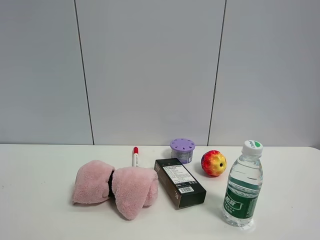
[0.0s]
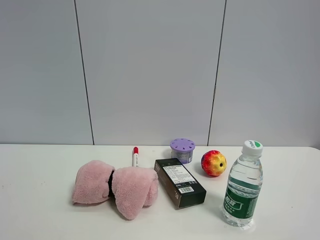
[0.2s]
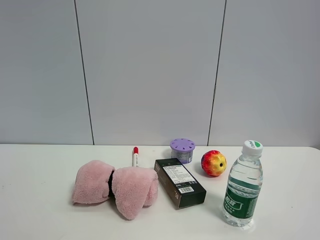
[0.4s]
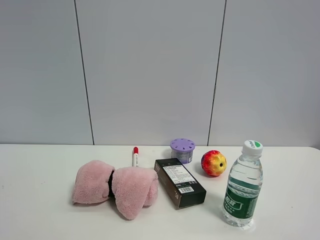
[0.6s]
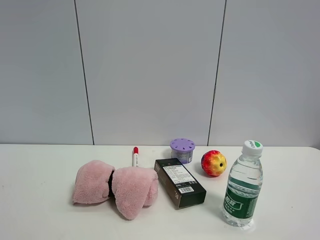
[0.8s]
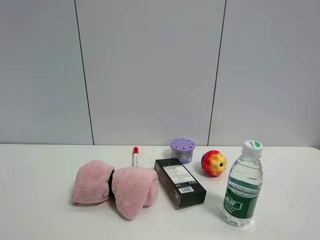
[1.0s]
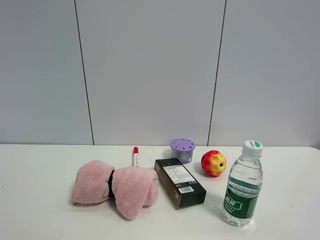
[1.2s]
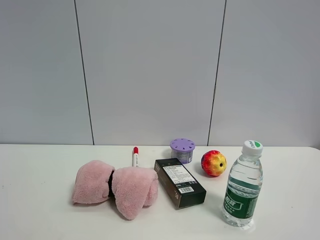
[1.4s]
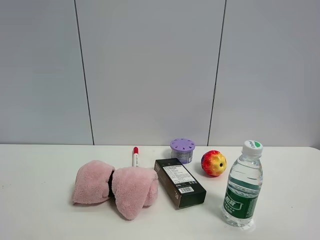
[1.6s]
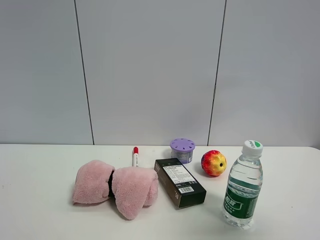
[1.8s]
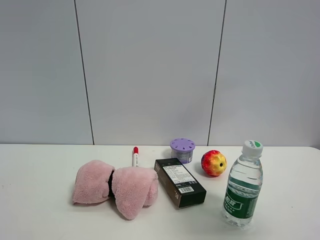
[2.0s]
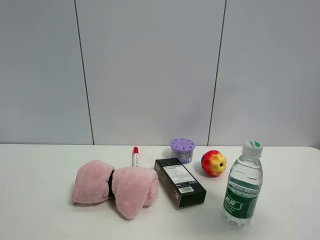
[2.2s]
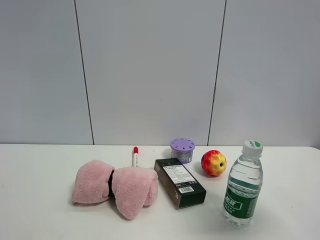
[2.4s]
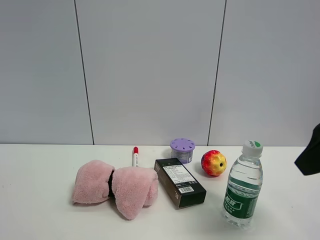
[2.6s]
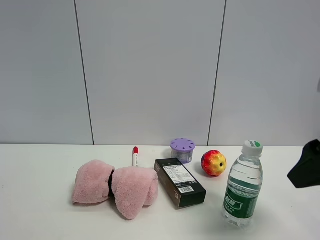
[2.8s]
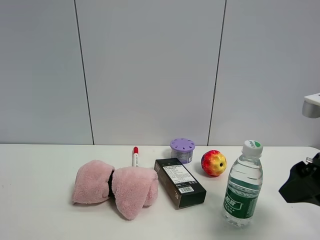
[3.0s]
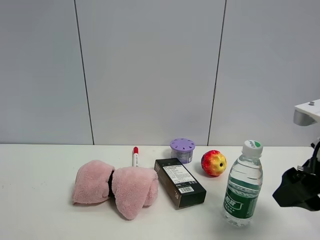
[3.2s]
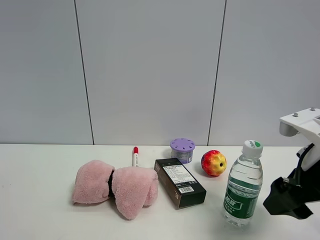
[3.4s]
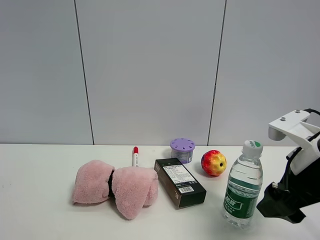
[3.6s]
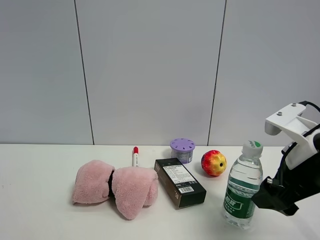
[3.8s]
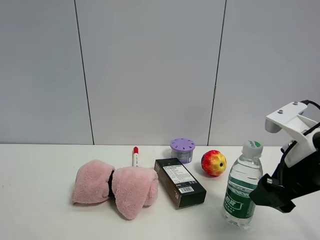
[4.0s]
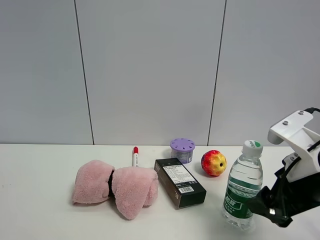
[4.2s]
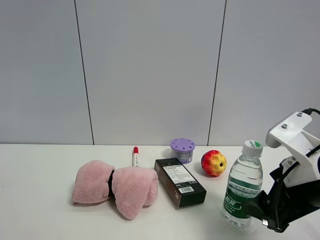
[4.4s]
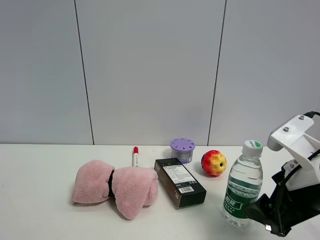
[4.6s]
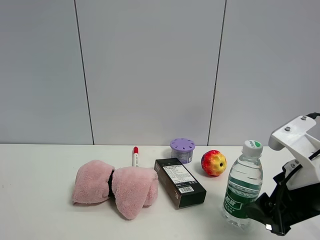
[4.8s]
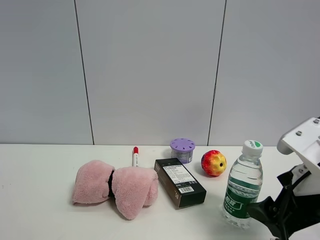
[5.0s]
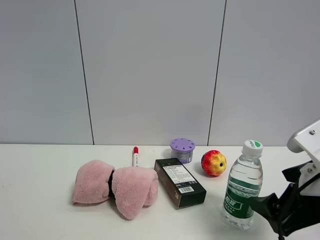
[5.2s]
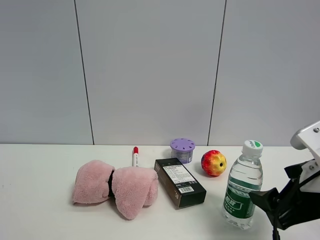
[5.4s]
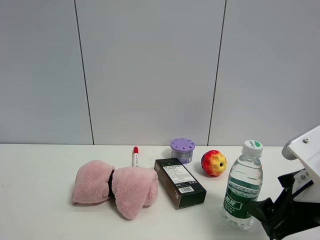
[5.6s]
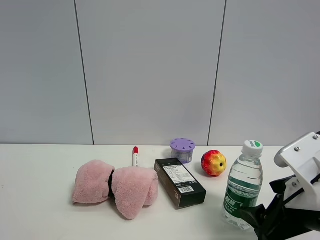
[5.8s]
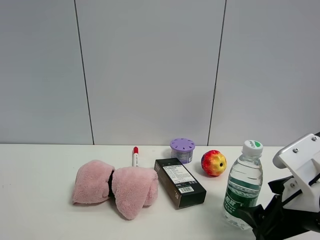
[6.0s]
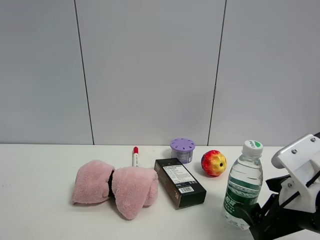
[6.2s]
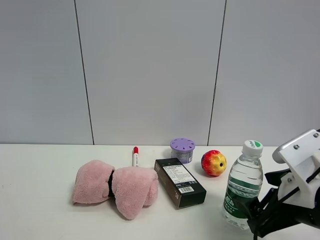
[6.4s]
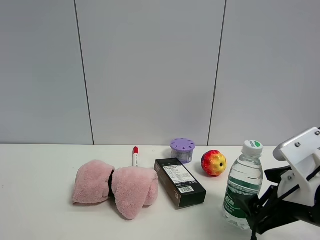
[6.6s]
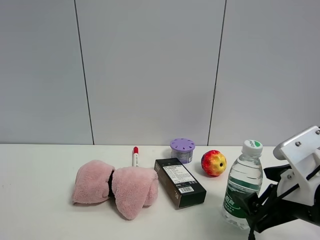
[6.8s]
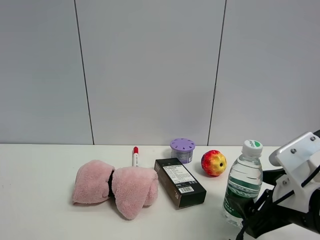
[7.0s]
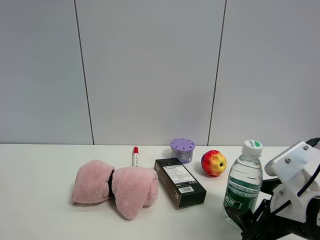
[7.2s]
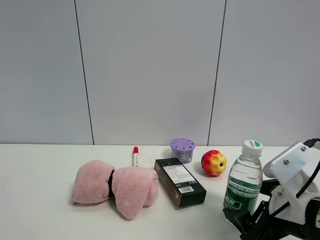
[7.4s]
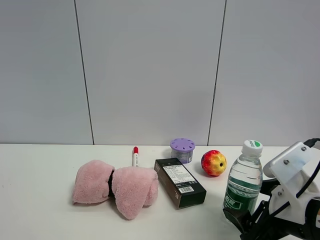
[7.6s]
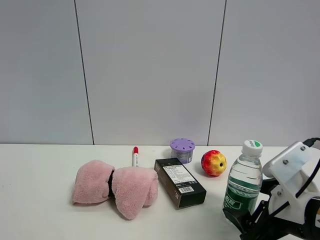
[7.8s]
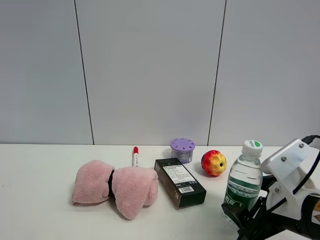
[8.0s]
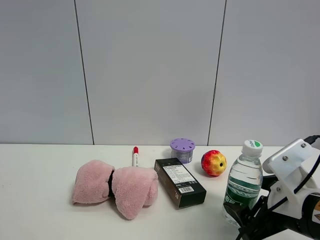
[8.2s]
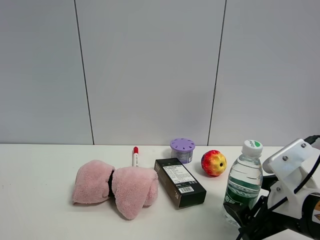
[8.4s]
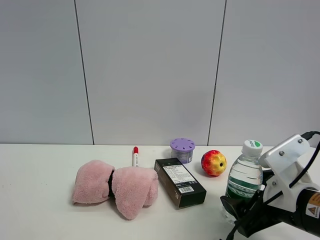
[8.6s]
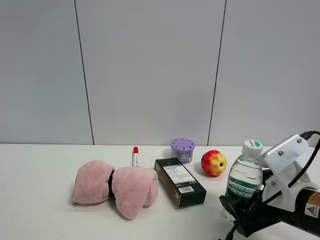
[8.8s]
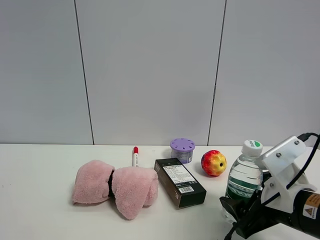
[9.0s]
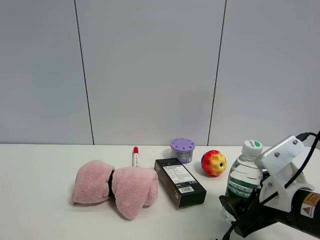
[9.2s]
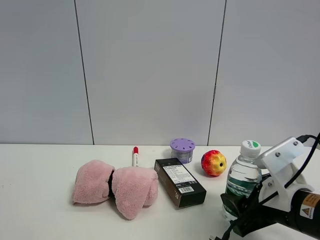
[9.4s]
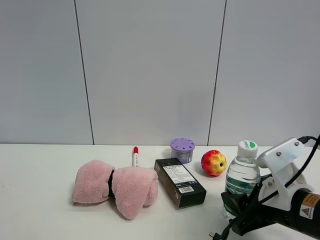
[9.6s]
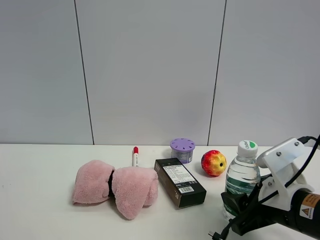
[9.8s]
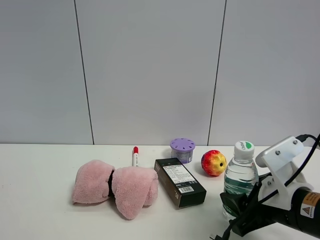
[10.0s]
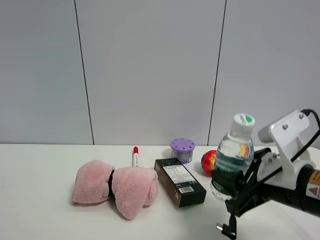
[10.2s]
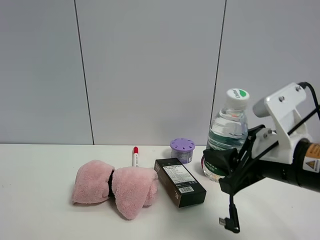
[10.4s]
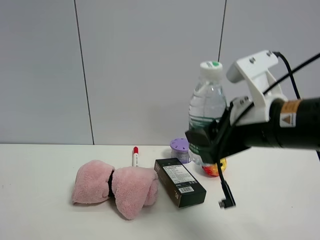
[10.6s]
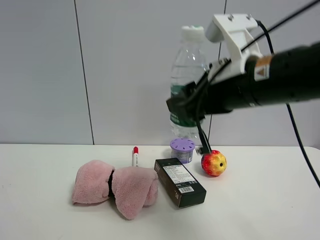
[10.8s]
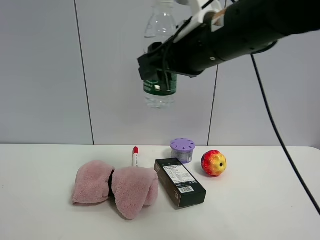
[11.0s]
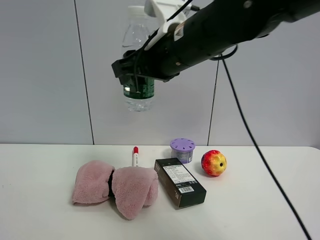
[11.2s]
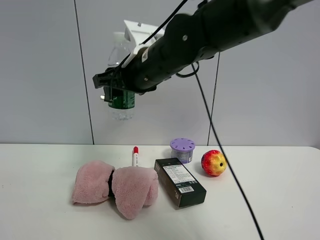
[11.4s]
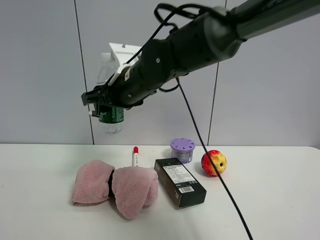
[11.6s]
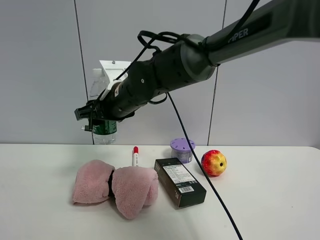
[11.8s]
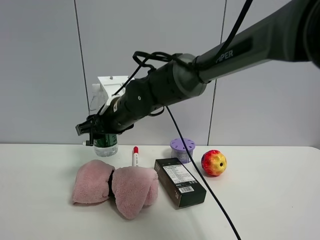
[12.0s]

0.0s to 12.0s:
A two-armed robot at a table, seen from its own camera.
Task of the whole recording: the gripper move the object.
Step, 0.0s to 9.6s: Grasp the YiBao mineral water with the right gripper.
1.6s to 3.0s: The right gripper shifts approximately 25 cm forward and downward.
3.0s to 4.4s: The right gripper moves downward, approximately 5 cm.
4.4s to 6.0s: There are only small adjustments of the grippers.
6.0s to 9.0s: The grippers stay close to where they were, moving slightly.
9.0s to 10.4s: The right gripper goes roughly 10 cm upward, and closes.
10.4s to 12.0s: The right gripper goes about 30 cm to the left and forward.

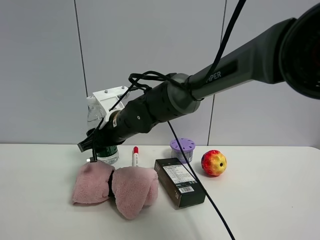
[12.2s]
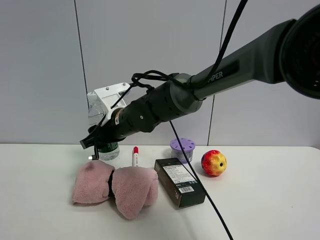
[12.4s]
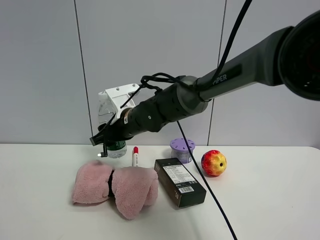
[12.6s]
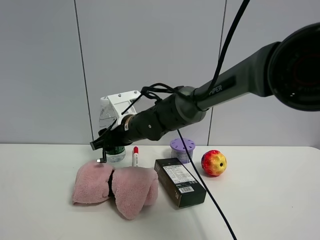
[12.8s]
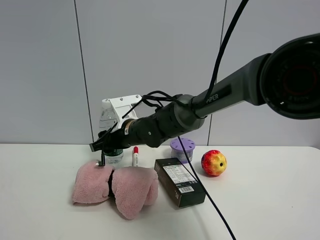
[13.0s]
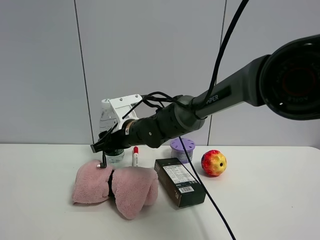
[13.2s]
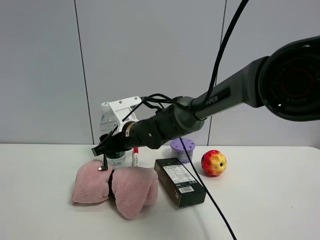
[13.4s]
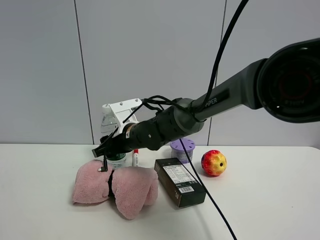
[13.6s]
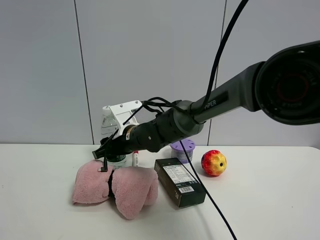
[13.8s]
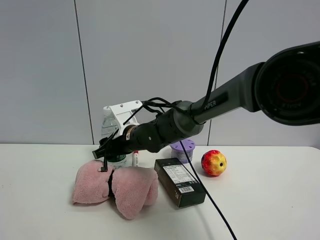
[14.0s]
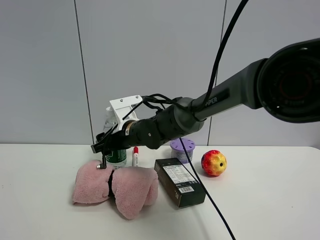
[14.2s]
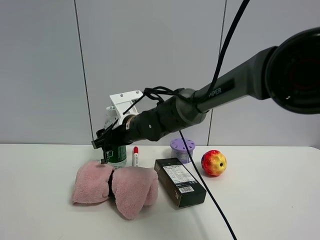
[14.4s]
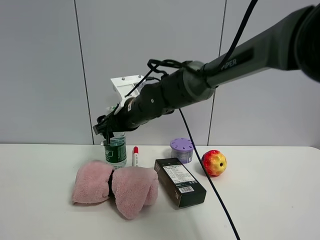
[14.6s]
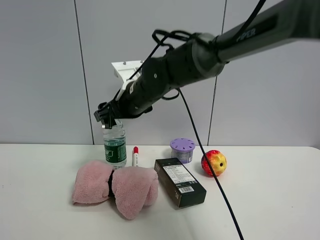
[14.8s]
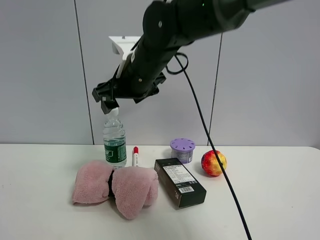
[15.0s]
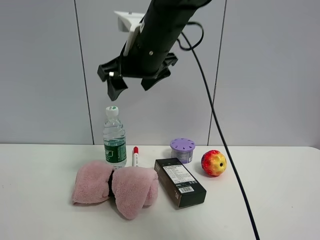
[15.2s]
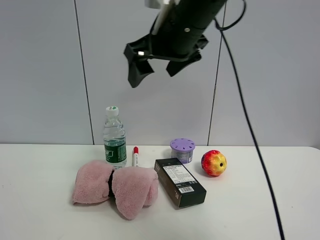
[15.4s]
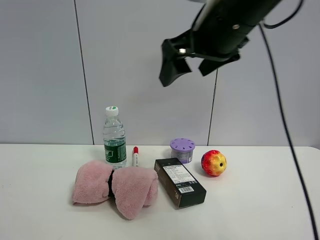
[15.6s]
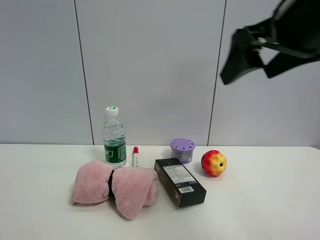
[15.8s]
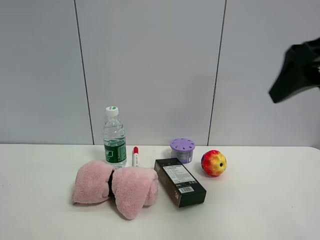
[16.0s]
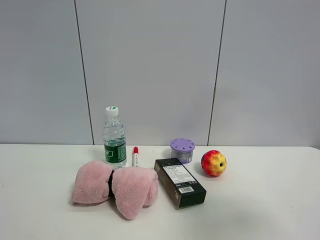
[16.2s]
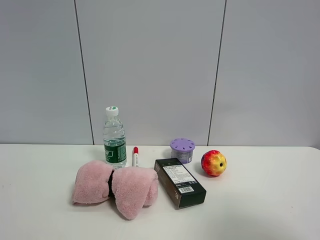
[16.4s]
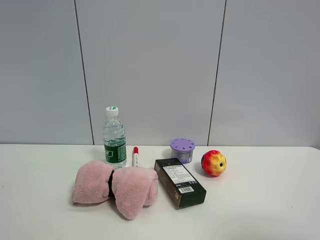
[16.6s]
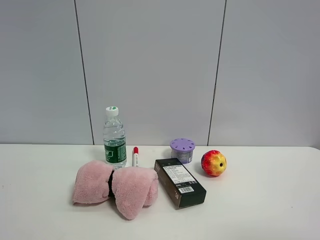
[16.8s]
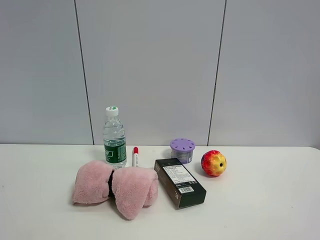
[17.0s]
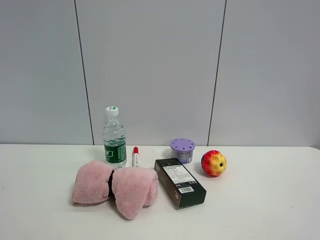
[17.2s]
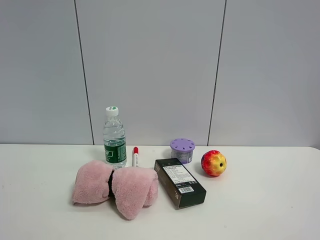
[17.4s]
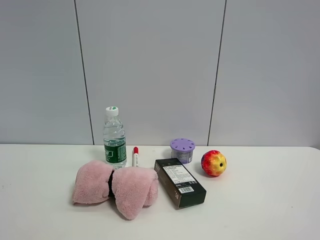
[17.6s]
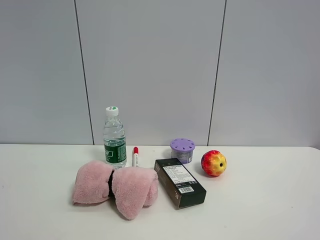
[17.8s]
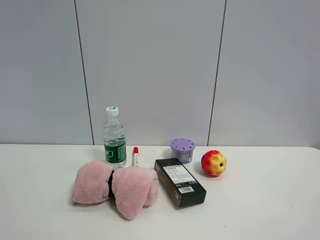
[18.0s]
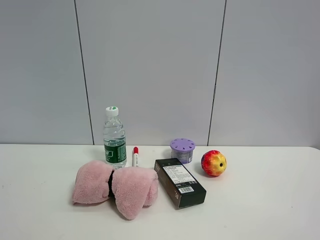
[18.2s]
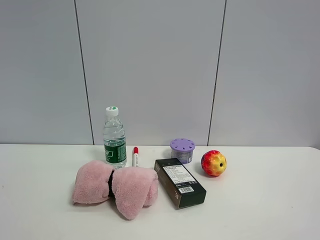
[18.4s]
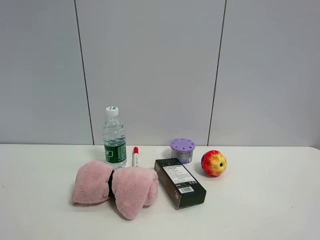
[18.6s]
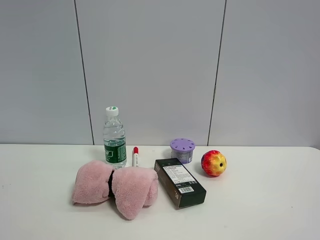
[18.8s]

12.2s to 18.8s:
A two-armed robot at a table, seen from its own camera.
Task of the whole recording: the gripper move the object.
Step, 12.2s to 15.2s: Place the YiBao mineral water on the table with the right gripper.
12.2s to 13.8s: The right gripper changes place by some 5 cm.
13.8s to 15.4s: The right gripper is displaced upward, backward and to the right by roughly 30 cm, and opens its fingers.
15.4s to 17.2s: The right gripper goes roughly 40 cm backward and to the right.
17.2s to 18.8s: Neither gripper changes place.

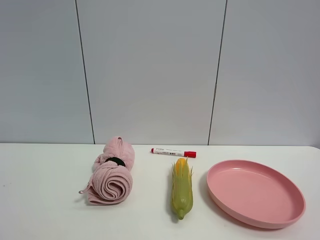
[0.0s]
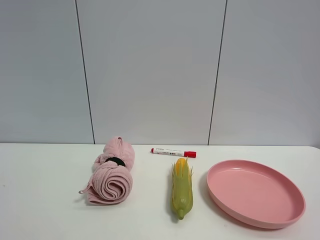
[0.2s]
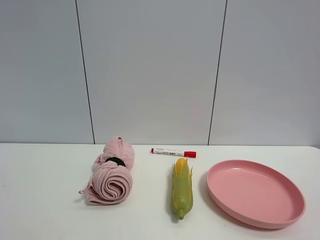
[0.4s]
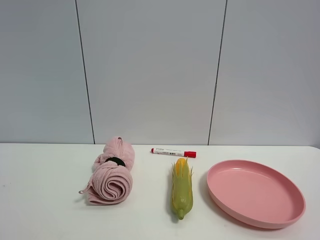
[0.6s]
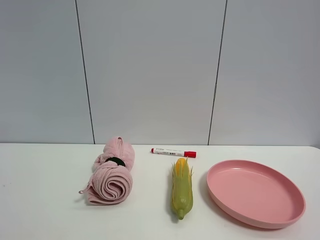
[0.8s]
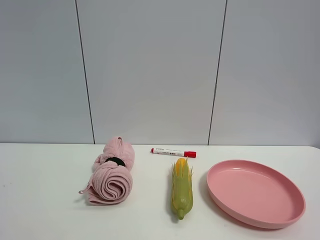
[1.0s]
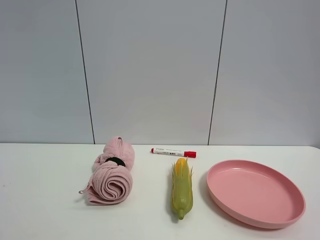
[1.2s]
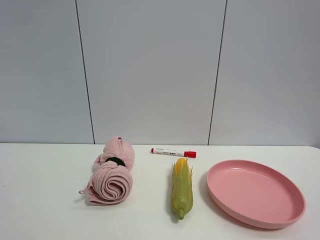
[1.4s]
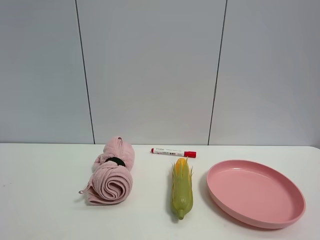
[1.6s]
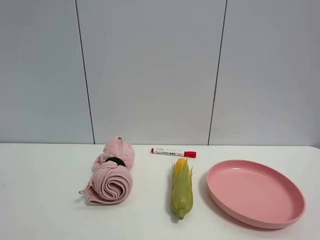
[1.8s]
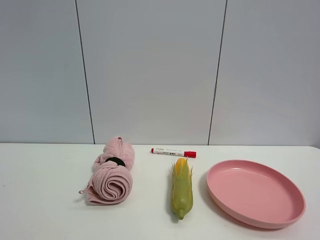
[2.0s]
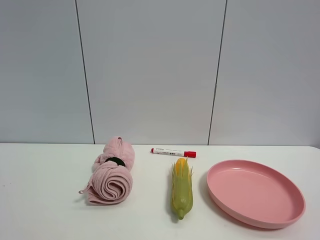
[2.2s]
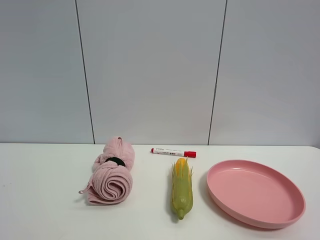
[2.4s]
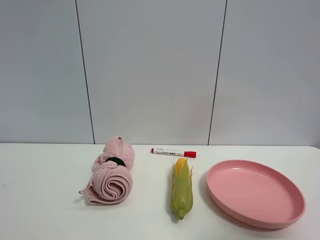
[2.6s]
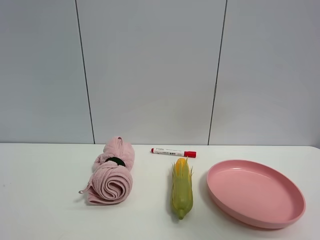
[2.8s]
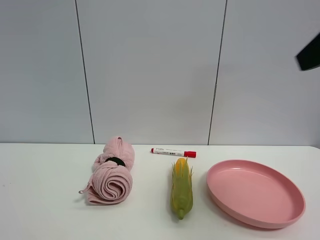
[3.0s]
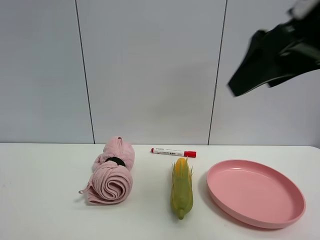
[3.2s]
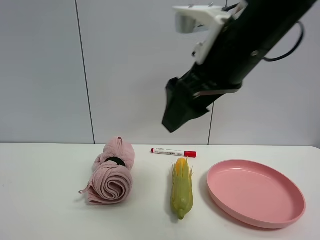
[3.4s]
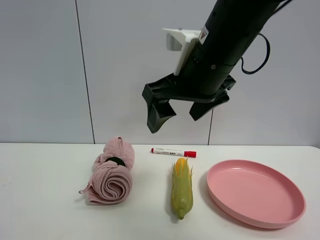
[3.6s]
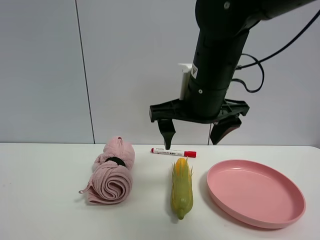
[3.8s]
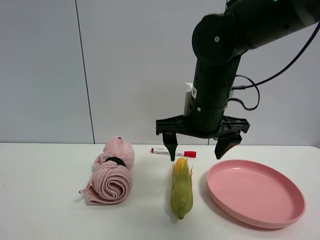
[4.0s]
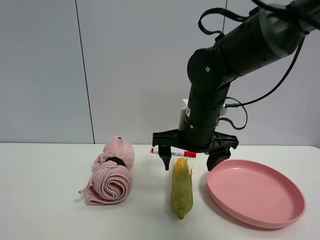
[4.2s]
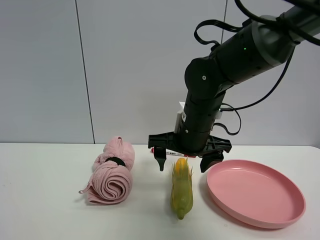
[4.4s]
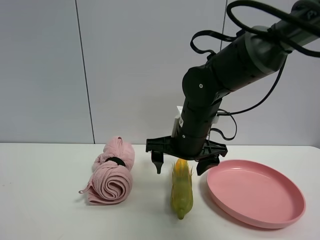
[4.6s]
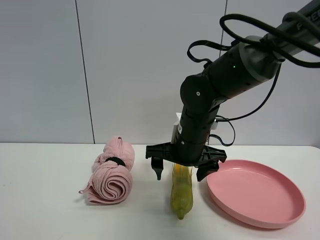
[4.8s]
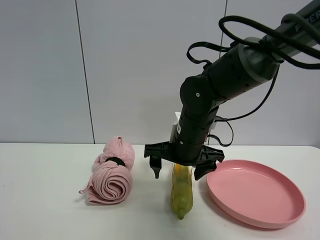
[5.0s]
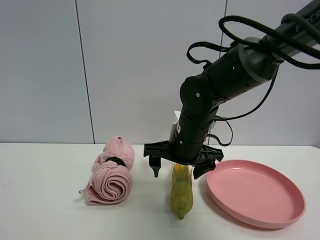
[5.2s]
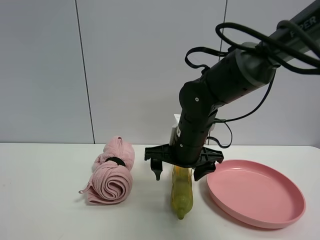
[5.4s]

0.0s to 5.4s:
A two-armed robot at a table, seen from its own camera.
Task of the whole recording: the gripper move the object.
0.0s to 1.4s: Both grippers stay put.
1.4s to 2.8s: The right gripper goes roughly 15 cm forward and upward.
2.8s to 4.0s: The right gripper is displaced to the left, forward and downward by approximately 30 cm.
4.0s to 5.4s: The right gripper goes about 10 cm downward.
